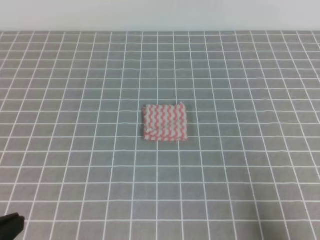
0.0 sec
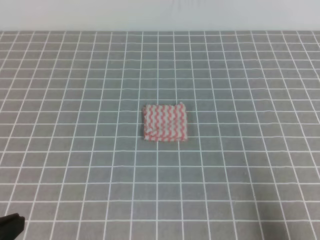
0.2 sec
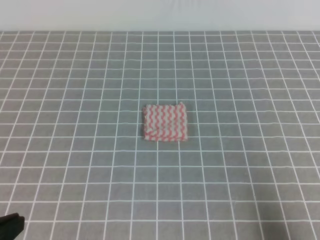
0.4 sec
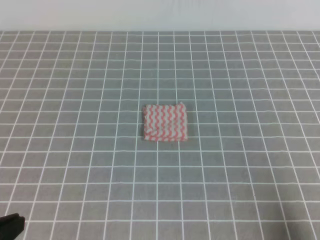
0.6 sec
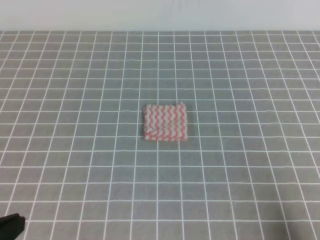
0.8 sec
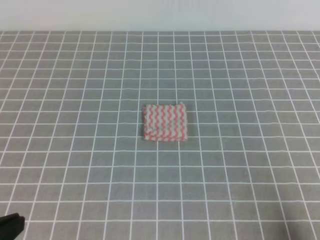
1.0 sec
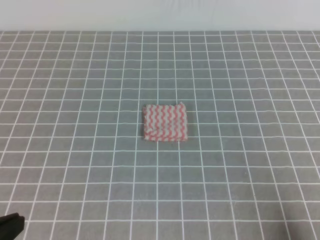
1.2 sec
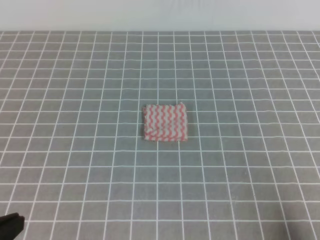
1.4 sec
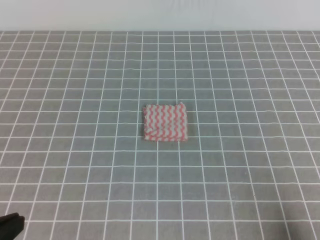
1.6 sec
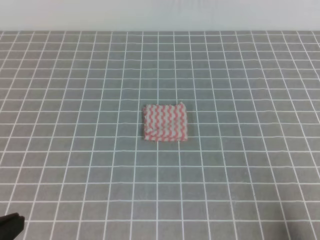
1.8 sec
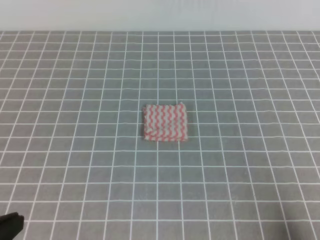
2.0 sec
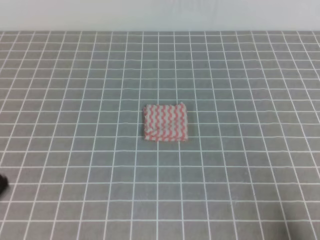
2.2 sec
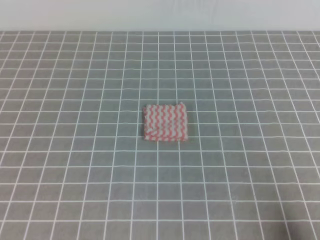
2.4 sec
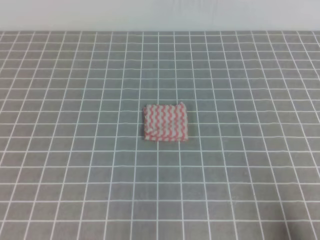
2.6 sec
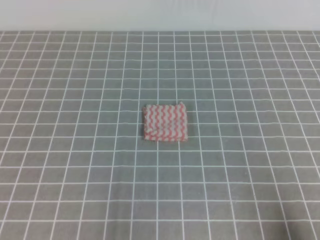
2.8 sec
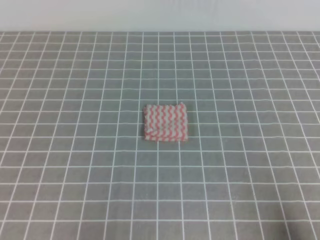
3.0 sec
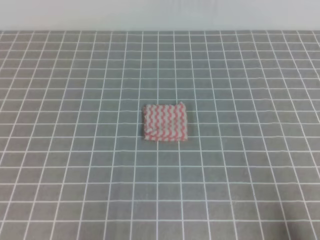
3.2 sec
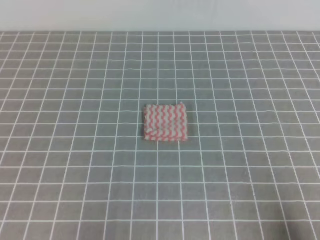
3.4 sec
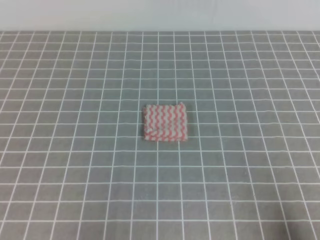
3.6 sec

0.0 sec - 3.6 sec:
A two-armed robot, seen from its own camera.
Step, 0.0 sec - 3.6 sec: Fold the towel.
0.0 sec - 1.8 sec: The grippers stay close to where they were, moving slightly.
1.8 sec - 3.6 sec: The left gripper moves downward, some 10 cm.
